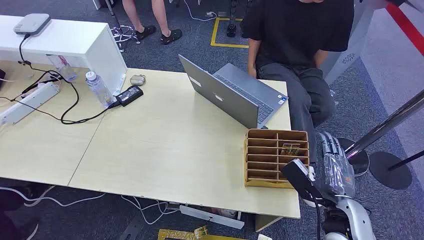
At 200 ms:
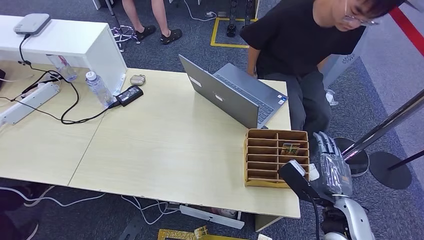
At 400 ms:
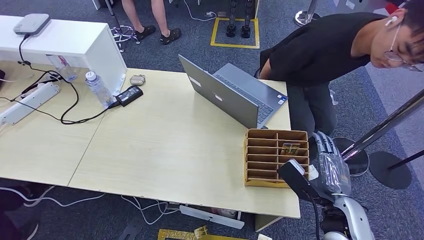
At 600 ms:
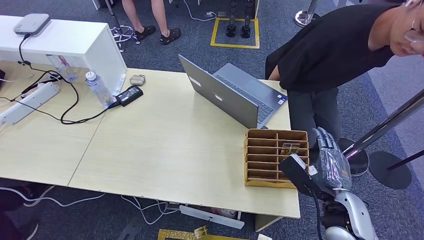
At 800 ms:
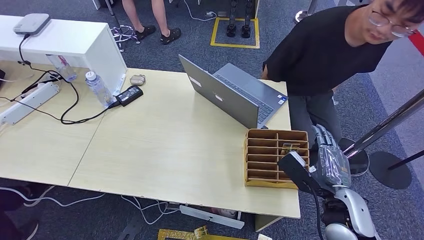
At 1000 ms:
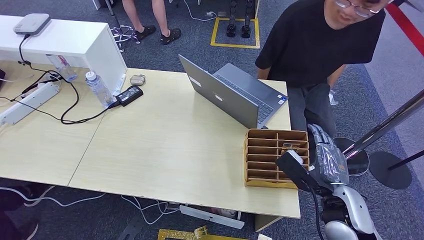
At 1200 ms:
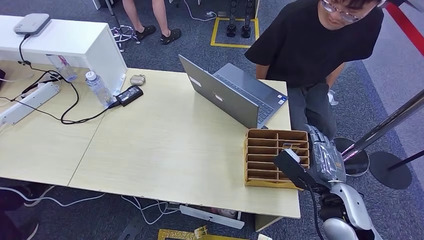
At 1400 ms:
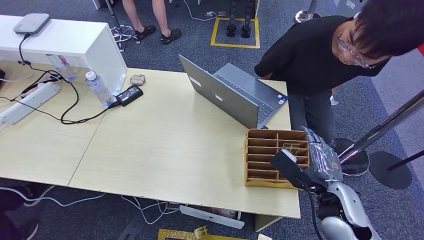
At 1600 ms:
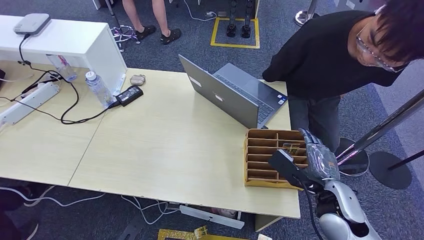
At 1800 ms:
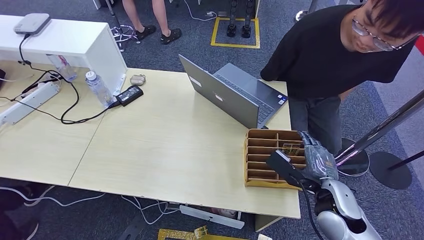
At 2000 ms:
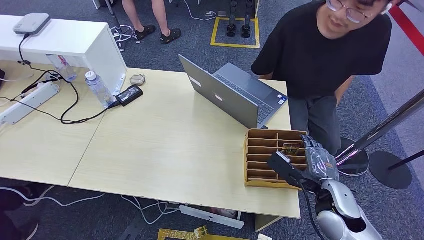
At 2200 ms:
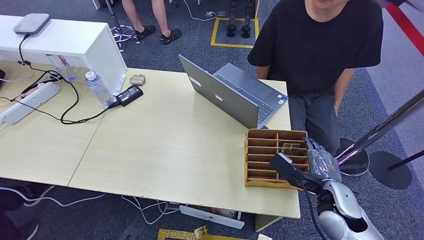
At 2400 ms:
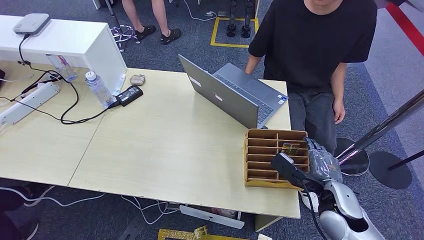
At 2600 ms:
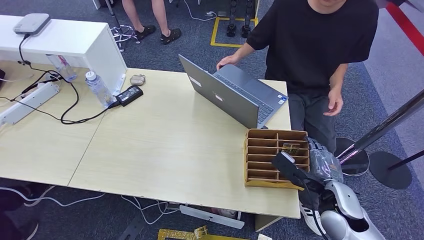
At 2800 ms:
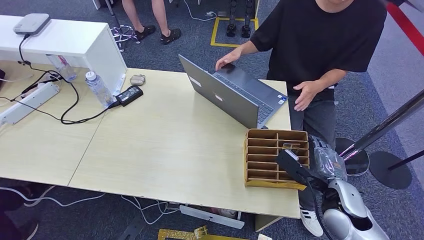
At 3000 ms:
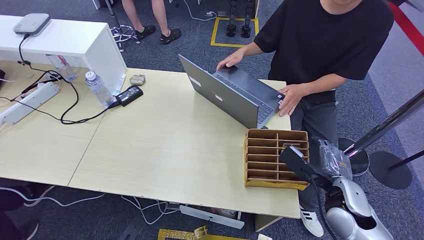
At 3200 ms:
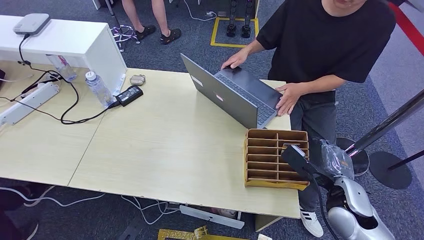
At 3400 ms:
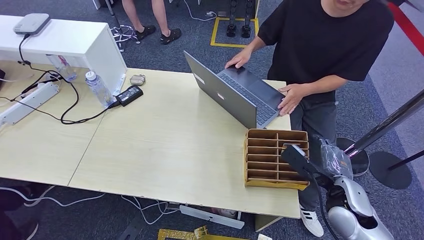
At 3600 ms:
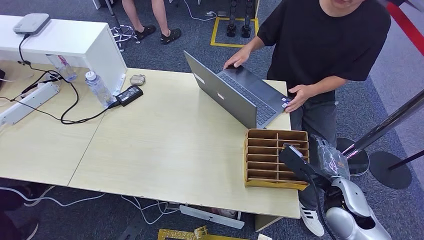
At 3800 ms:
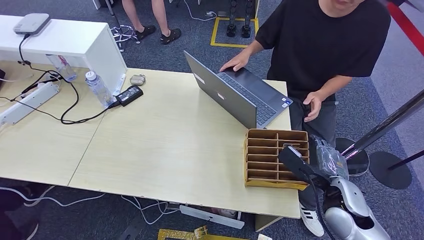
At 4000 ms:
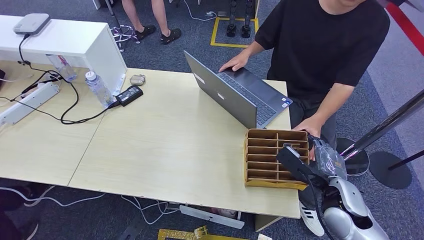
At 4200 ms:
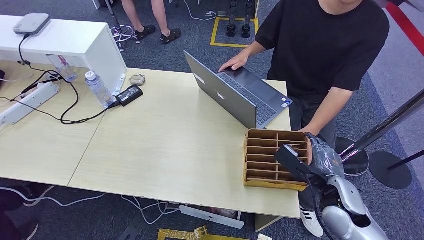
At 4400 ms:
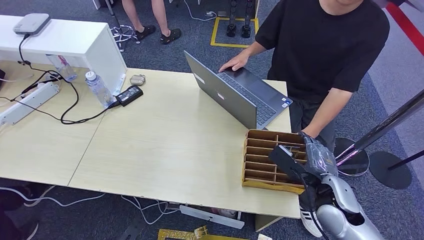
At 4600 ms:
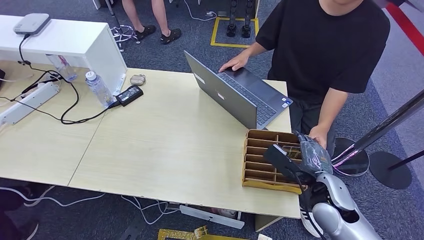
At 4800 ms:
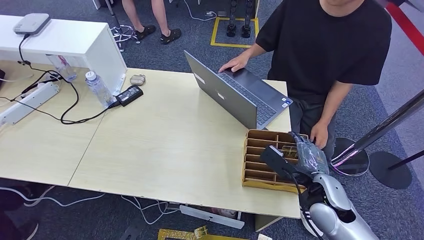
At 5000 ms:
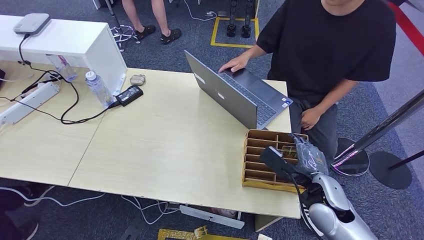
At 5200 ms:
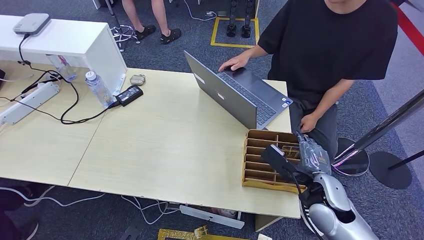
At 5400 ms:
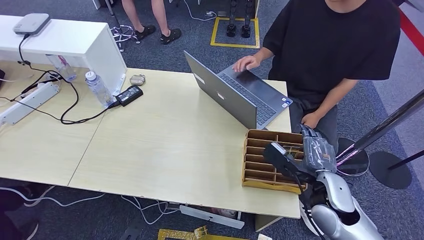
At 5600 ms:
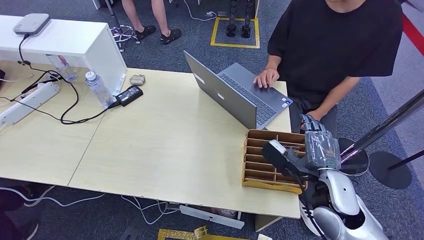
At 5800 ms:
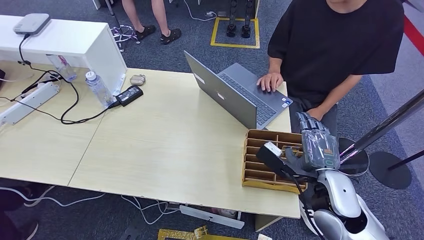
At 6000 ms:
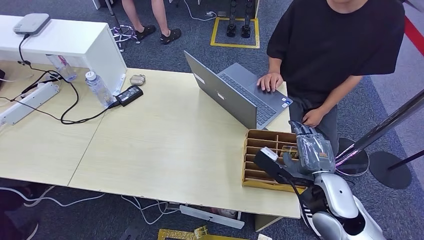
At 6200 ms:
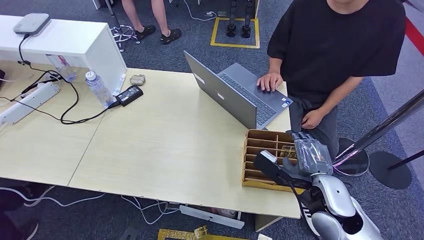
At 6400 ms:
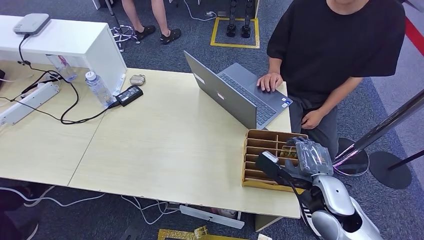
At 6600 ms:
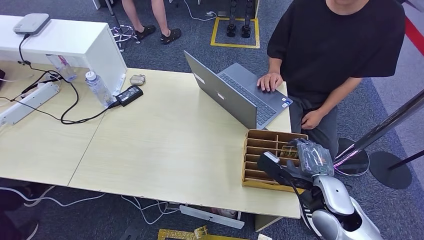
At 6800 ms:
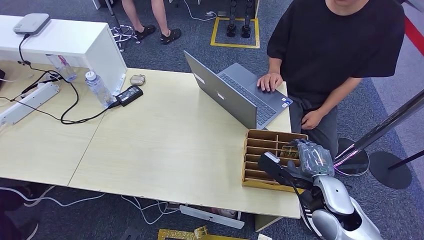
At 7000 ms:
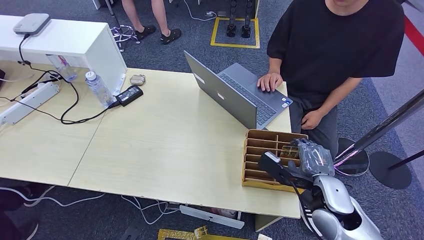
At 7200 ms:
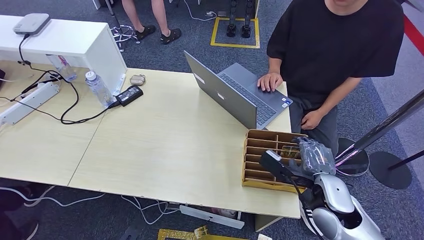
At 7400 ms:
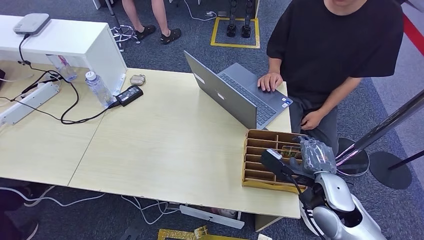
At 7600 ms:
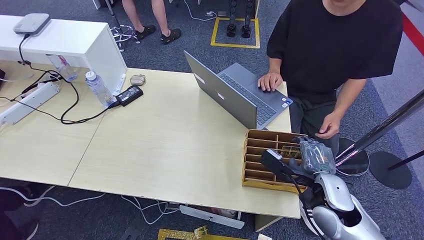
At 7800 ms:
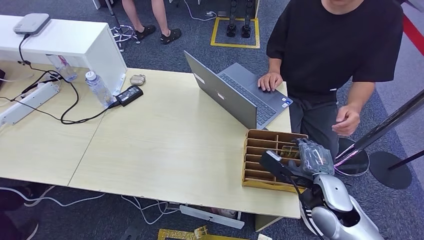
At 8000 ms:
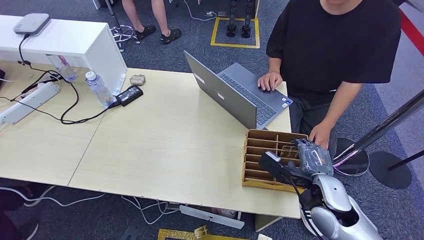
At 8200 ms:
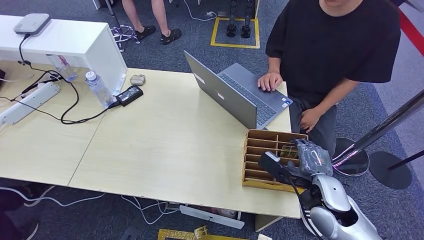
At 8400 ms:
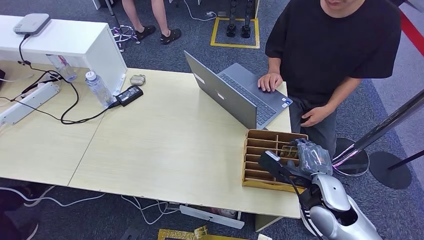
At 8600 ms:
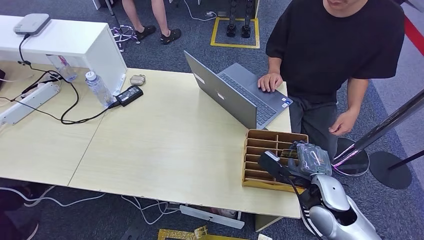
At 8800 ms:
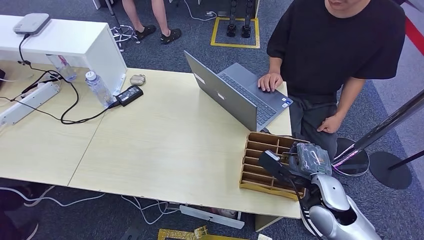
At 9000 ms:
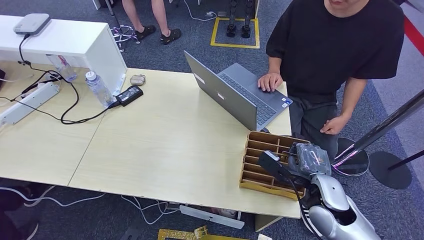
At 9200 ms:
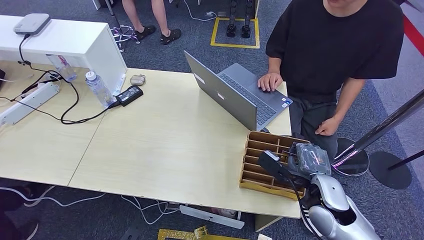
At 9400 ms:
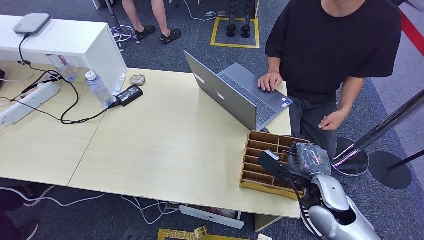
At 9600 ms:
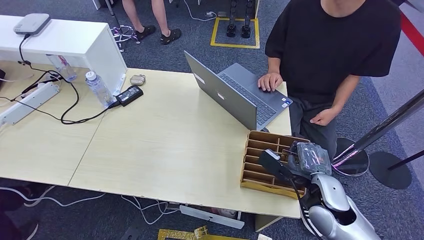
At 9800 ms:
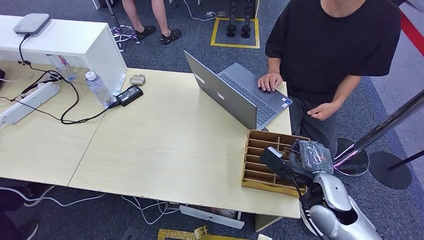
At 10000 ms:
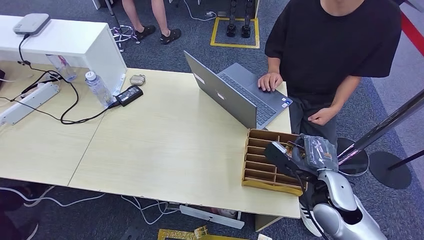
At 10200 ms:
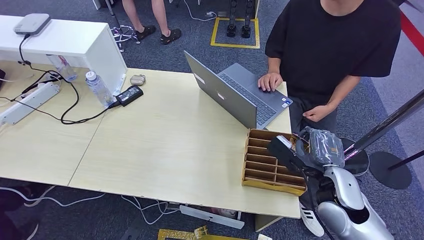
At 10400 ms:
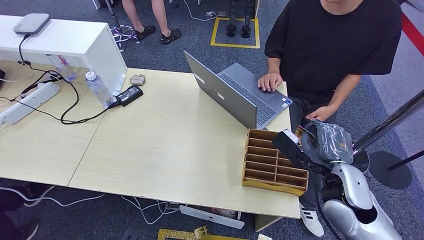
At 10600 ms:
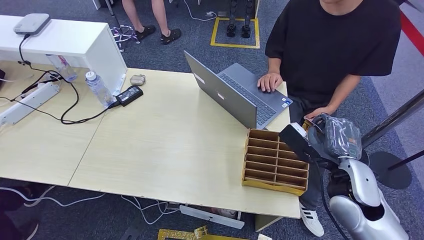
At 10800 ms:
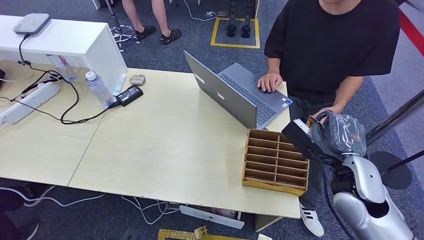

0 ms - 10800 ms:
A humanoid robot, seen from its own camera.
Step, 0 ms - 9200 ms: Pick up the room card from the card holder.
Step, 9400 ms - 10800 ms: Hand the room card to the target.
1600 ms - 7800 ms: The hands stay close to where they were, moving slightly.
7800 ms - 9200 ms: The two hands keep their place.
9200 ms - 10800 ms: The right hand heads upward, covering approximately 10 cm.
